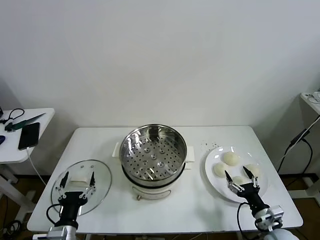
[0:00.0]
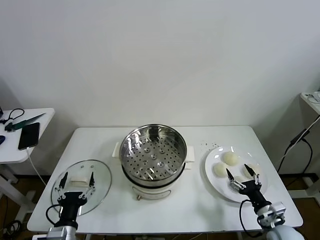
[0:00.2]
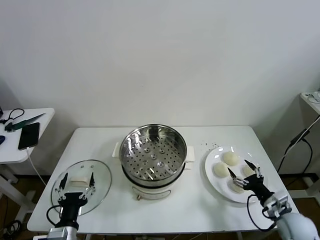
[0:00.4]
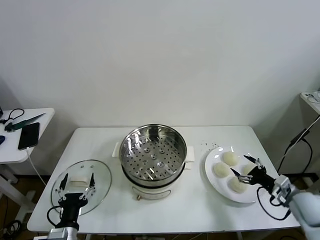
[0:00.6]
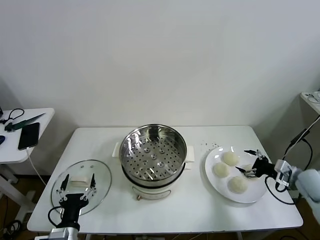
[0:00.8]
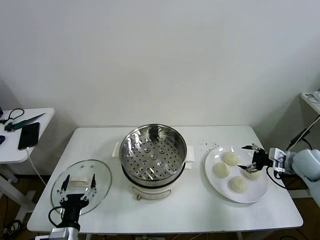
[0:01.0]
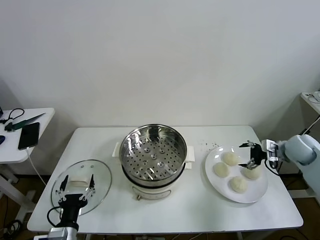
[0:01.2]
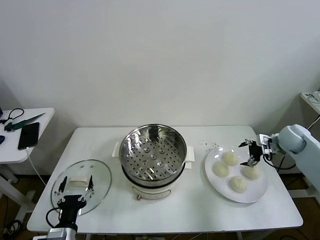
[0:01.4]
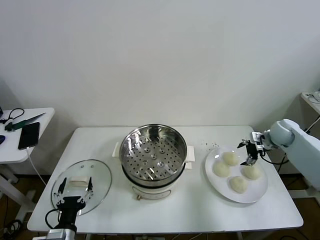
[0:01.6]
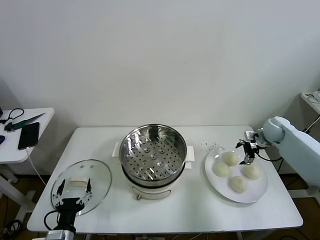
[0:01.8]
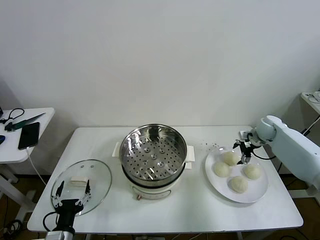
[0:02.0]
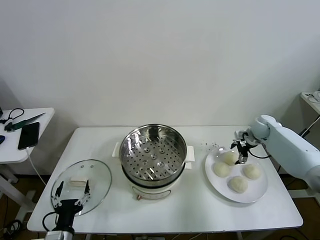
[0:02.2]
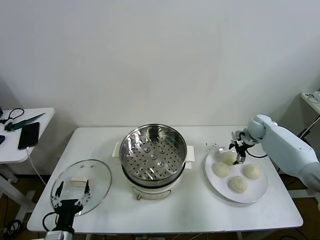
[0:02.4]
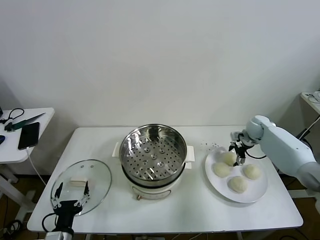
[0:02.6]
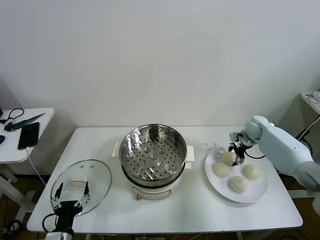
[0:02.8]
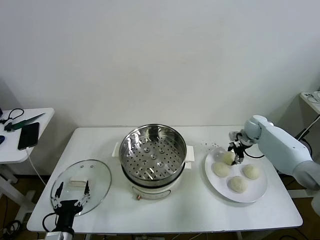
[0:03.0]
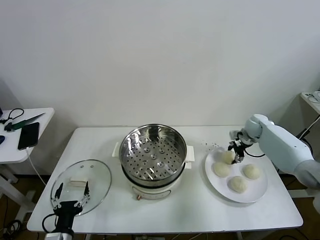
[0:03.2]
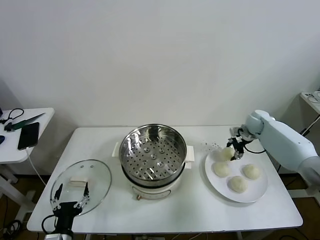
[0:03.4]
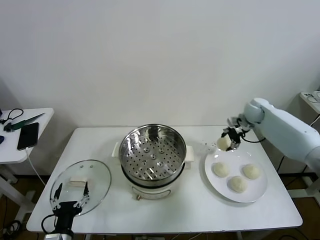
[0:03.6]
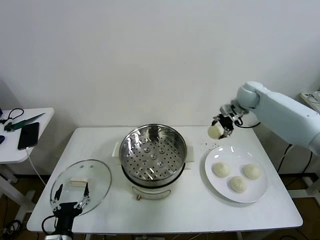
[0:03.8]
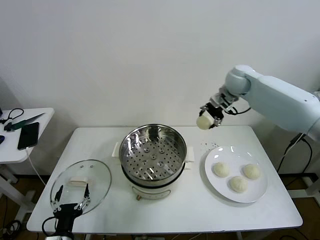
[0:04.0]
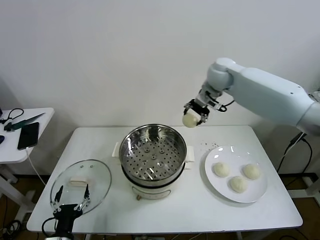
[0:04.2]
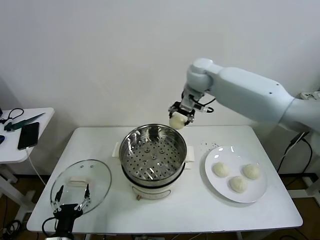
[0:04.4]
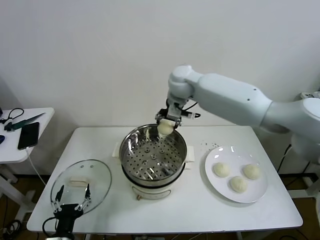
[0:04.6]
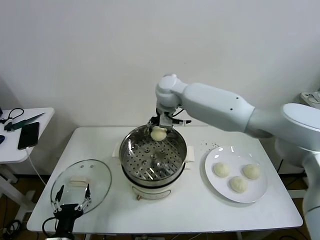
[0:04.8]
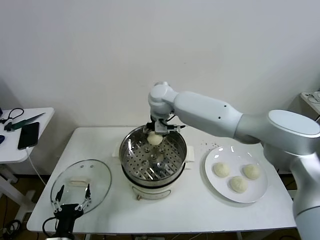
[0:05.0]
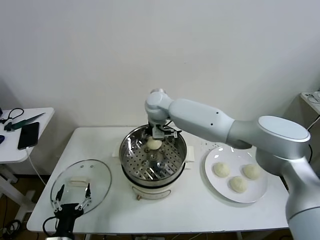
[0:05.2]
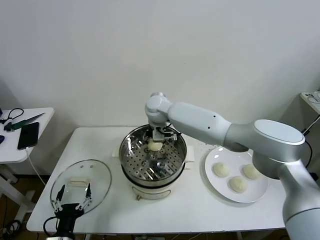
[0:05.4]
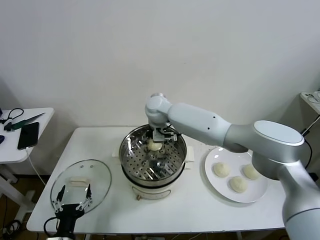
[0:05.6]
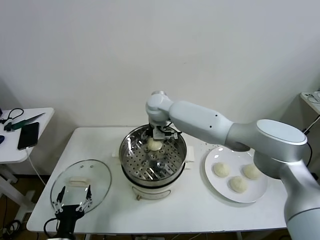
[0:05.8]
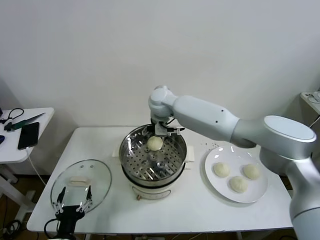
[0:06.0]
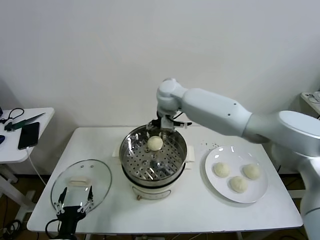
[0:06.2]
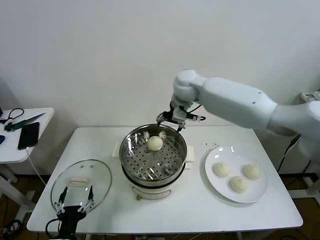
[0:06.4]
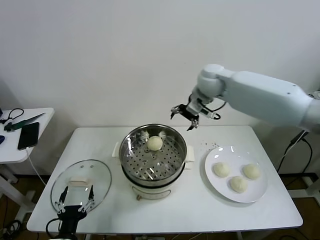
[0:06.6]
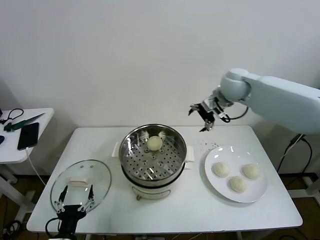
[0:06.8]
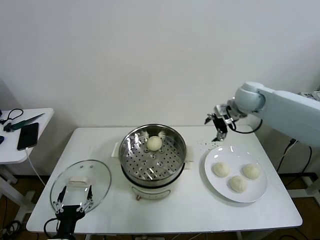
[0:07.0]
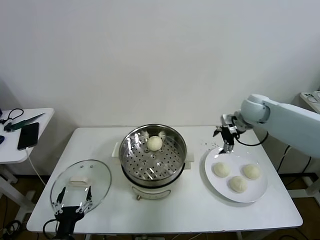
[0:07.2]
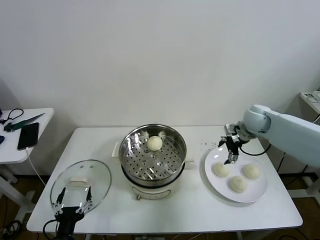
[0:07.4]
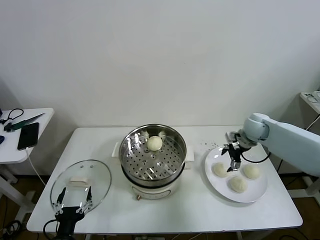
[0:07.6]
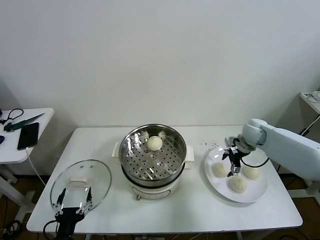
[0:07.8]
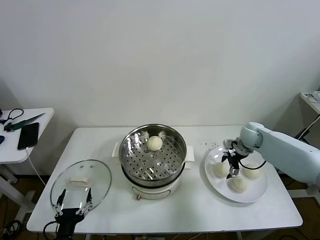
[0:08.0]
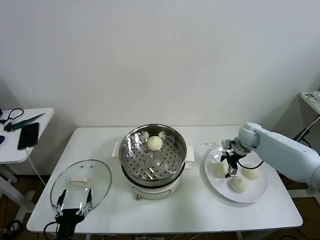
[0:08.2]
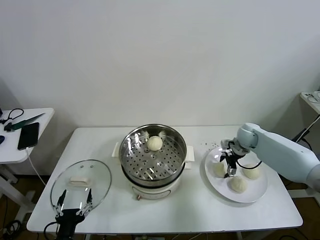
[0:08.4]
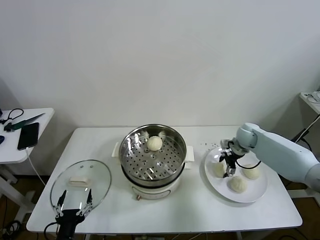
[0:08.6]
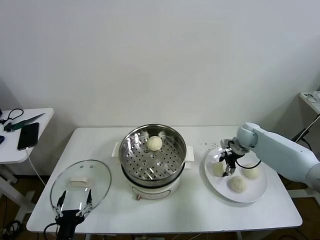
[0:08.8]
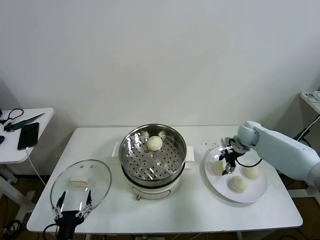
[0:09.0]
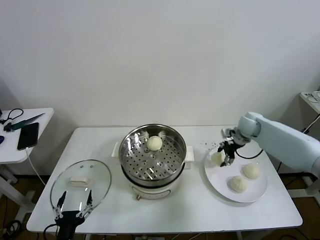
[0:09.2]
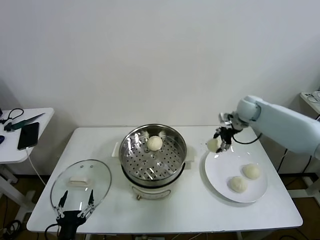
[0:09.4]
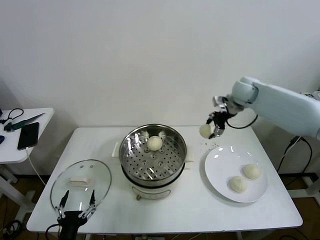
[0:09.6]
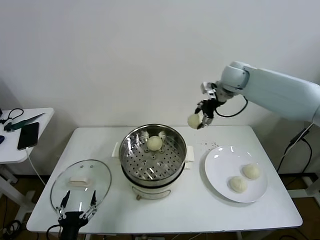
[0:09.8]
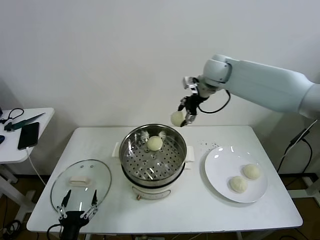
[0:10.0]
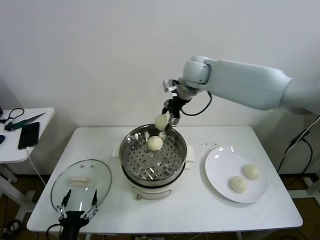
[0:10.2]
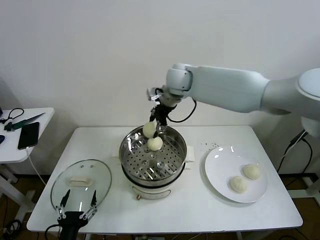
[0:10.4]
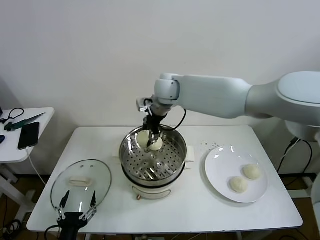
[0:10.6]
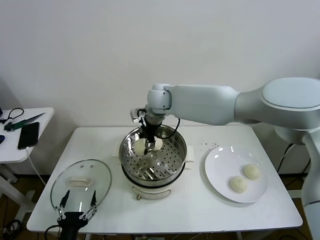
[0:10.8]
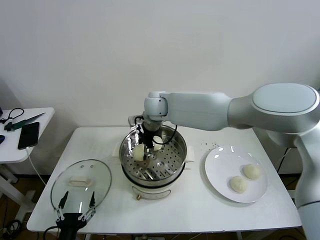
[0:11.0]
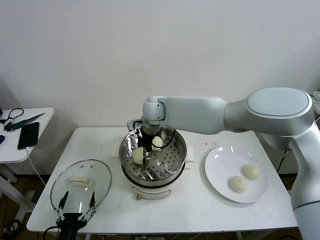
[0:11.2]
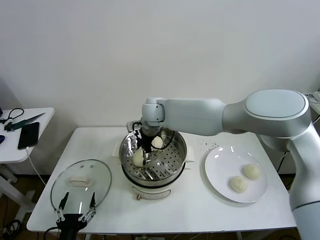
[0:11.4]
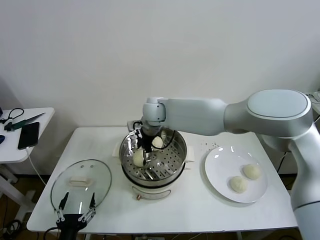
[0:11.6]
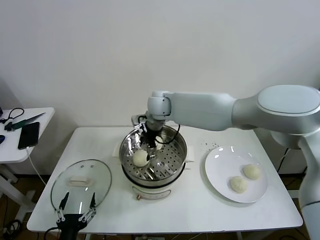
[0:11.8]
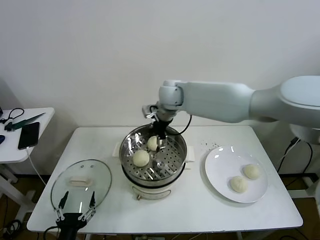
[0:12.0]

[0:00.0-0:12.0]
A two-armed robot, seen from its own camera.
Task of the whole recording: take steamed baozi put them in steamer then cover it.
Step, 0.0 to 3.0 s: Grasp the baozi in the plate with right gripper.
Step, 3.2 to 5.6 s: Place the baozi on the steamer with right gripper.
Step, 5.8 to 8.8 s: Grasp the baozi in the plate with right gripper.
Step, 9.0 to 11.6 s: Place the baozi on the steamer with right gripper.
1.6 to 3.0 s: The right gripper heads forward, covering some 5 cm, and closes.
3.0 to 4.4 s: The right gripper is displaced to the left and upward by about 40 cm.
4.4 to 6.0 s: The right gripper goes roughly 10 cm to the left and downward, and opens up.
6.0 to 7.6 s: The right gripper goes roughly 35 cm to the right.
7.6 to 9.0 s: The right gripper closes up.
9.0 to 10.4 s: The right gripper moves to the left and upward, roughly 40 cm.
10.4 to 12.0 s: The right gripper goes downward and returns, approximately 10 cm each way, and opens up.

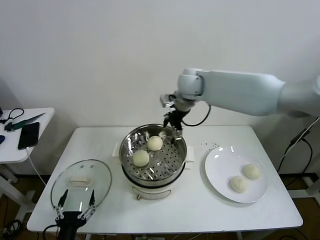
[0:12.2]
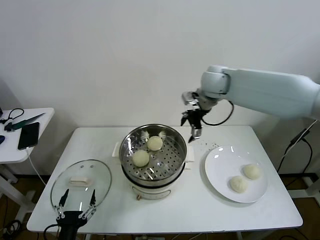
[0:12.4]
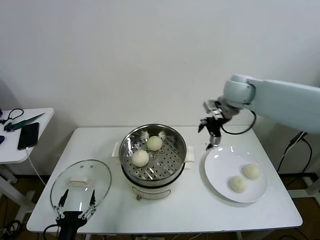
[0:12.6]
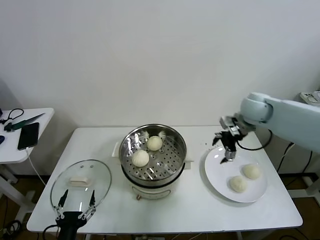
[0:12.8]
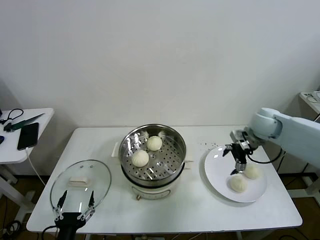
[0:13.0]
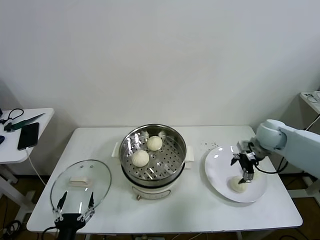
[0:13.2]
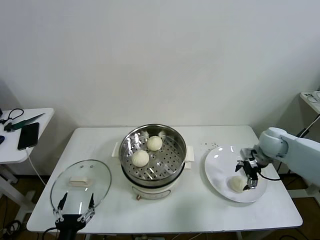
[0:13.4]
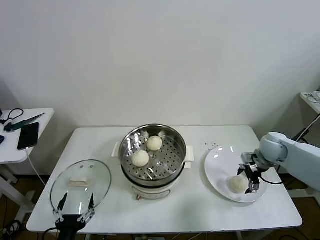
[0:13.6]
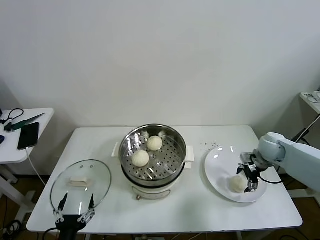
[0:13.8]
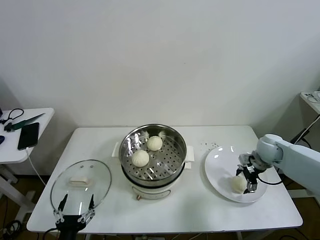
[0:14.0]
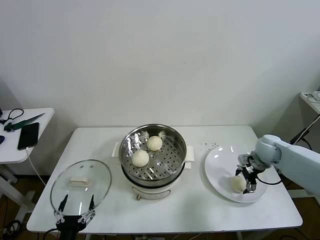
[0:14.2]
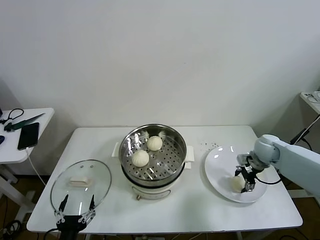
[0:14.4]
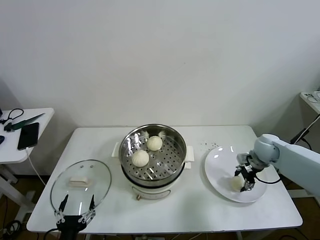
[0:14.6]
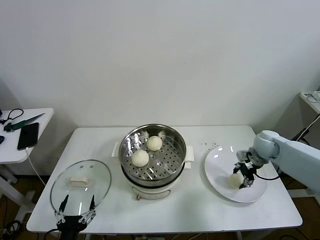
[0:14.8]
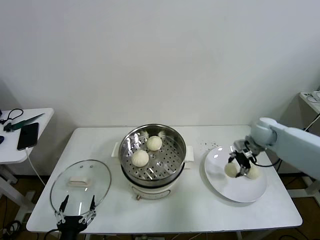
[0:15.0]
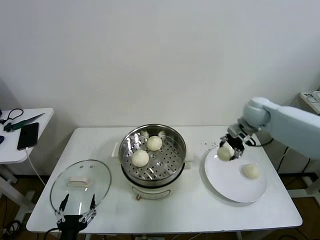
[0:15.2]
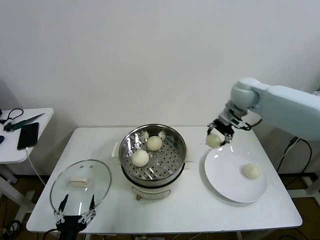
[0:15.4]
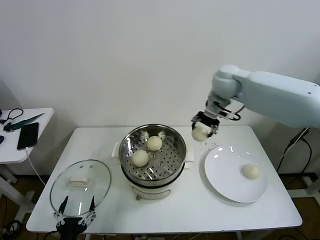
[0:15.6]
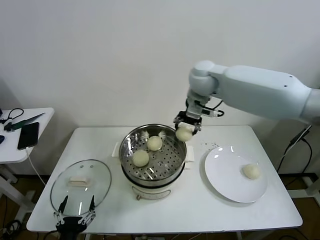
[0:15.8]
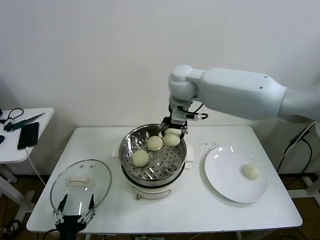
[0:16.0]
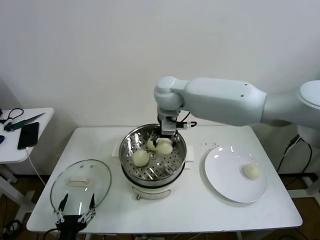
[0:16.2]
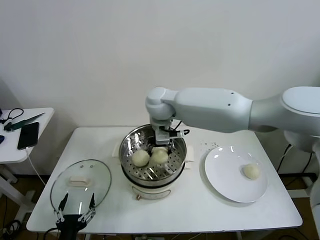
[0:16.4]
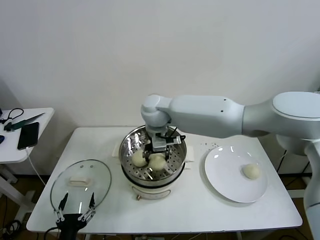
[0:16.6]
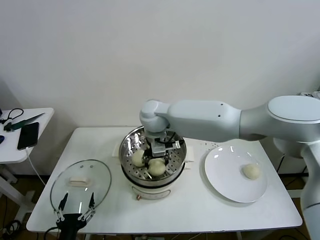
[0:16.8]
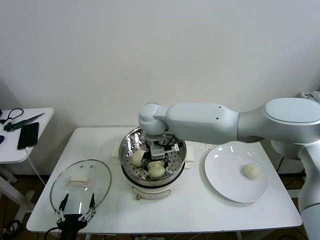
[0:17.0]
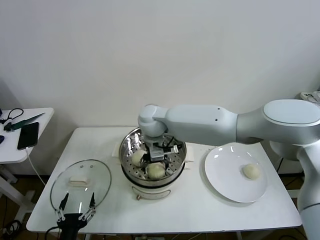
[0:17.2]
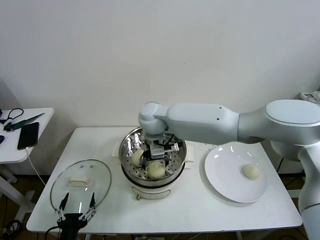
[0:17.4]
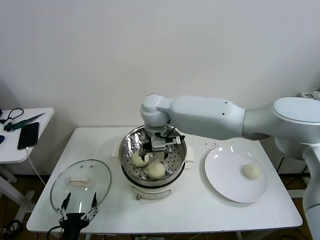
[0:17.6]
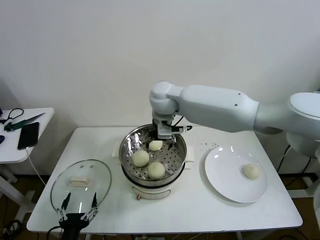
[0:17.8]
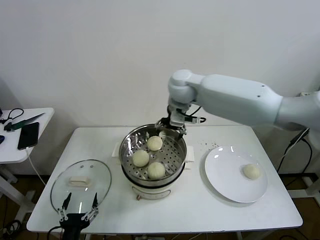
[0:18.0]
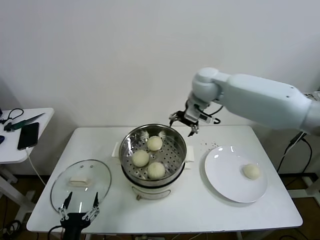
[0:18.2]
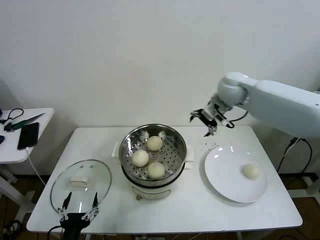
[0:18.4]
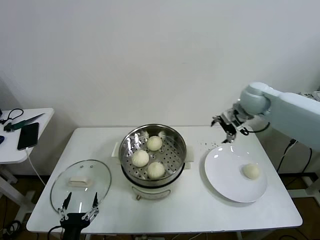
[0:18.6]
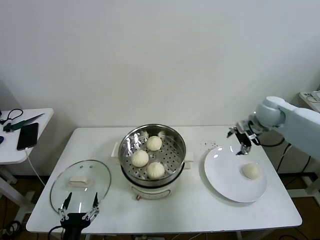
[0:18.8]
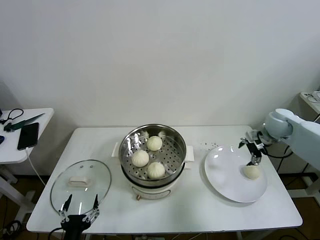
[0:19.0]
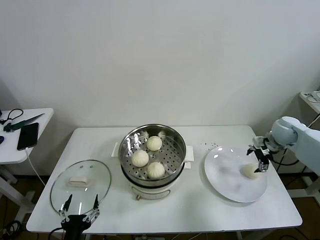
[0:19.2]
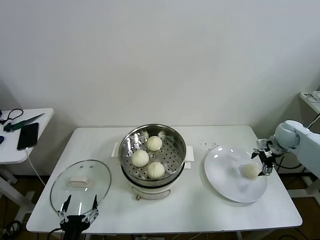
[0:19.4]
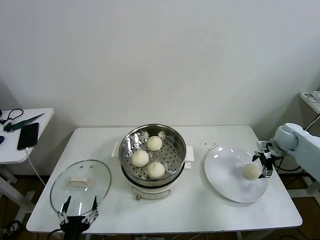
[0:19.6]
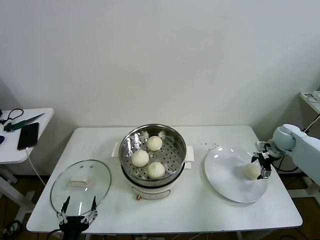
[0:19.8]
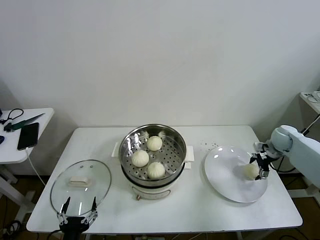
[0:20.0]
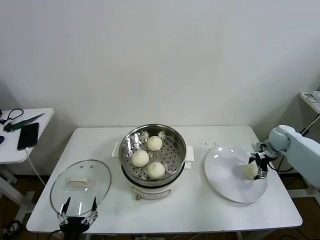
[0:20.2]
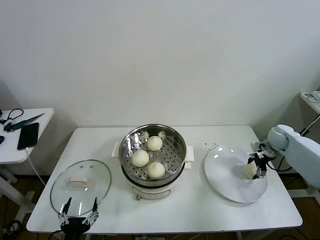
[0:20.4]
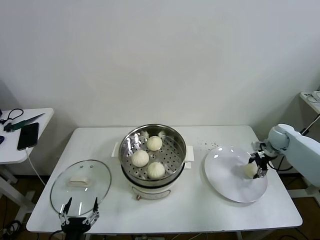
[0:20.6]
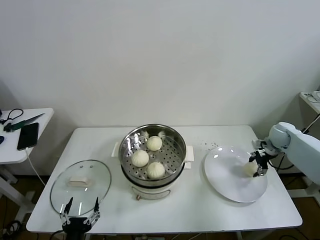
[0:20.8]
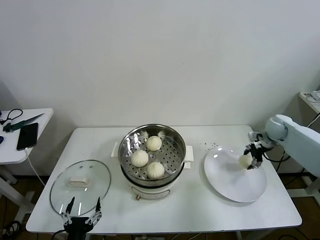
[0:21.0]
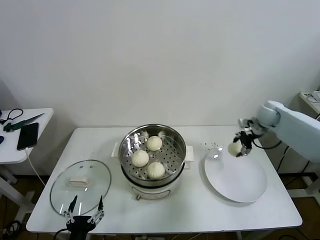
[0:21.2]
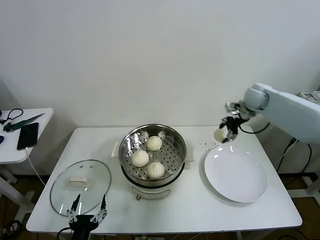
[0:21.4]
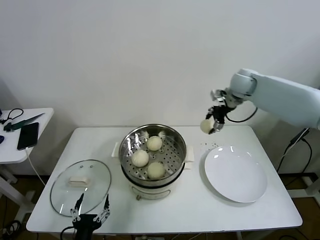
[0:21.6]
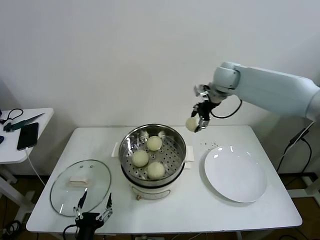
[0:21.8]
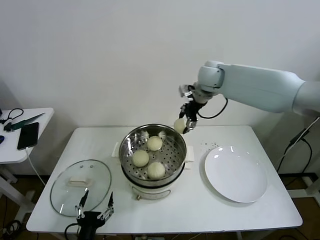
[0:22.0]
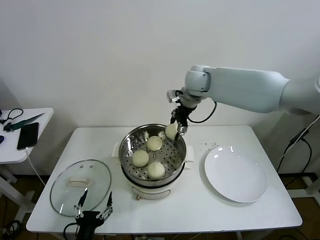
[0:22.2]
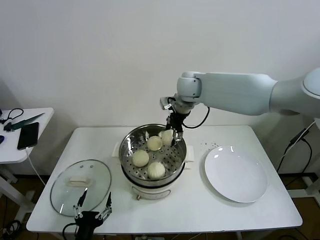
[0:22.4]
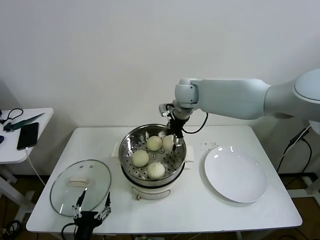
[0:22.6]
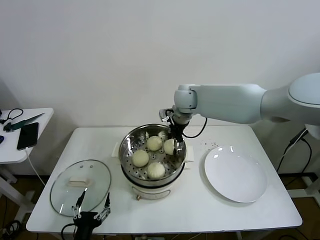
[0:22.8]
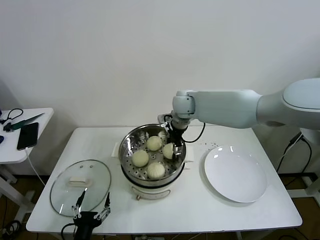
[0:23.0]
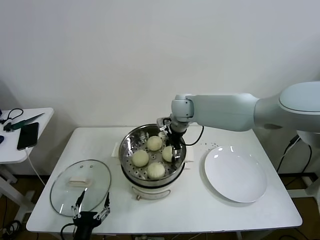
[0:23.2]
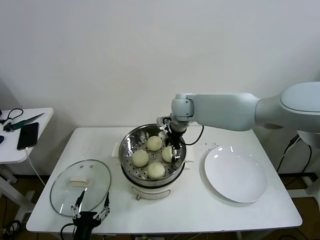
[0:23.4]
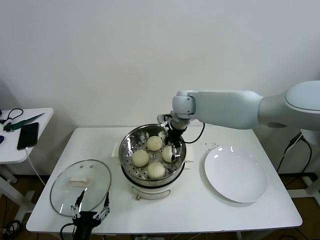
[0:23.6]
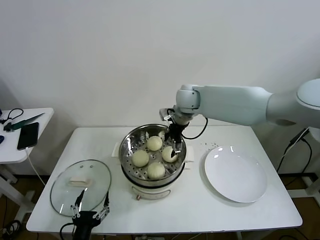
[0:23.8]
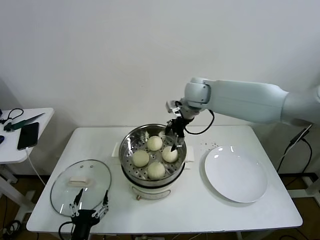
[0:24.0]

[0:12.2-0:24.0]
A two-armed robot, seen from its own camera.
Task of the whole recording: take steamed baozi put them in steamer then cover it.
Step, 12.2 to 14.4 s: Grasp the baozi in the plate with right gripper.
Step, 14.6 to 17.4 s: Place the baozi on the steamer with right gripper.
Step, 17.6 to 20.4 s: Grasp the baozi in the plate with right gripper.
Step, 20.6 to 23.4 s: Place the baozi on the steamer with right gripper.
12.2 to 13.6 s: The right gripper moves to the right and downward, about 35 cm.
13.6 to 15.2 s: The right gripper heads upward, to the left and forward, covering about 15 cm, and closes its fingers.
15.2 to 16.6 s: The right gripper moves to the left, about 35 cm.
16.6 to 18.2 s: The right gripper heads to the right, covering about 20 cm, and opens its fingers.
18.2 to 19.6 s: The right gripper is displaced to the right and downward by some 40 cm.
19.6 to 21.0 s: The right gripper changes place by about 5 cm, and closes its fingers.
21.0 to 22.6 s: The right gripper travels to the left and upward by approximately 40 cm.
22.6 to 24.0 s: The right gripper opens up.
